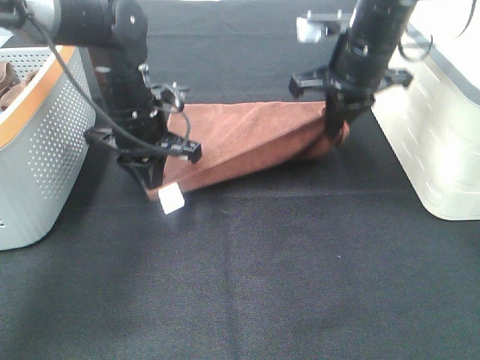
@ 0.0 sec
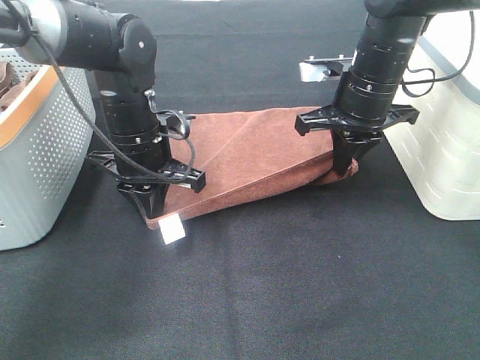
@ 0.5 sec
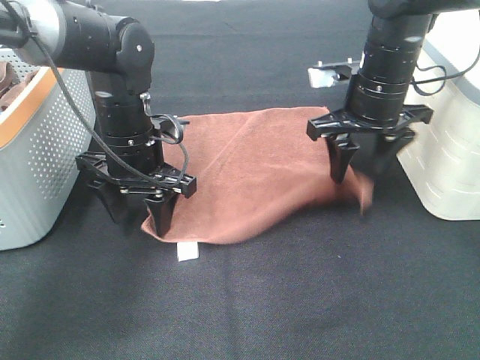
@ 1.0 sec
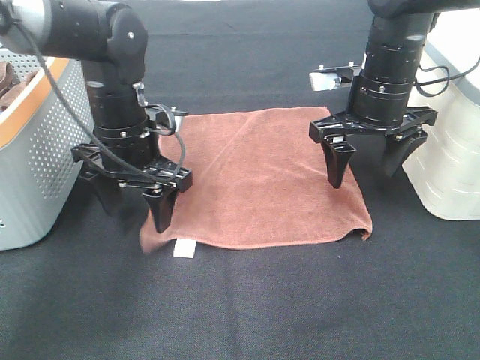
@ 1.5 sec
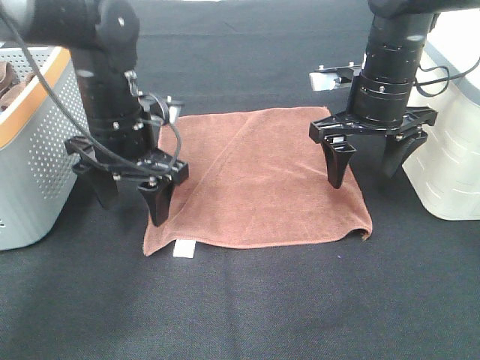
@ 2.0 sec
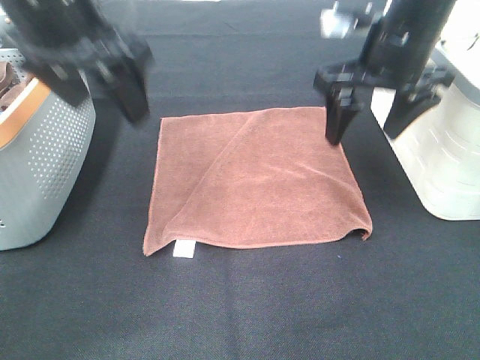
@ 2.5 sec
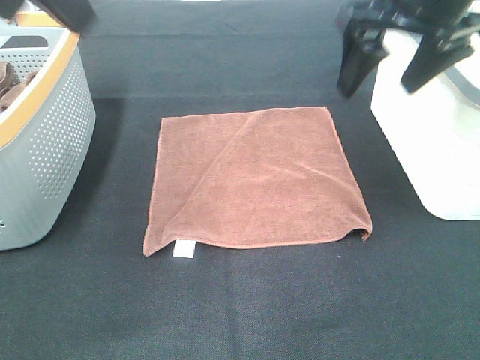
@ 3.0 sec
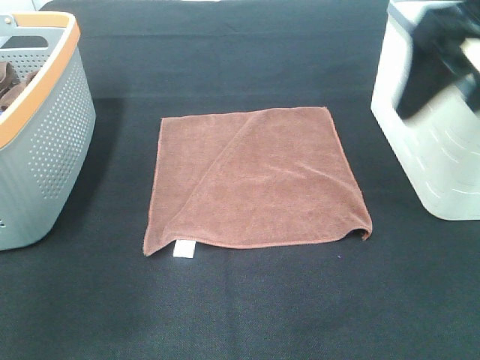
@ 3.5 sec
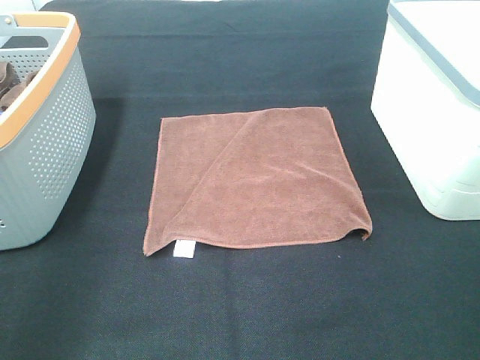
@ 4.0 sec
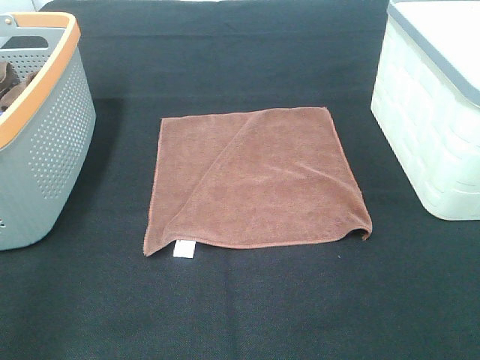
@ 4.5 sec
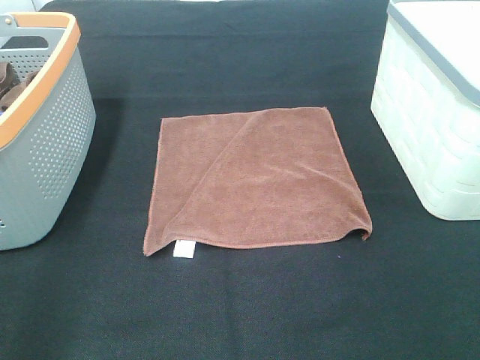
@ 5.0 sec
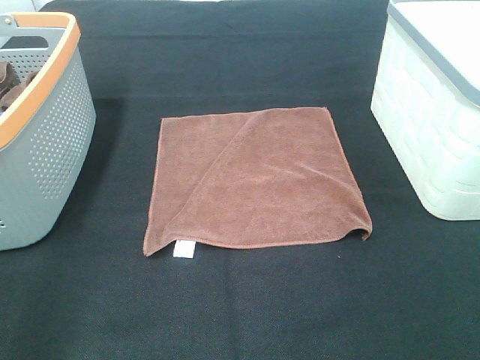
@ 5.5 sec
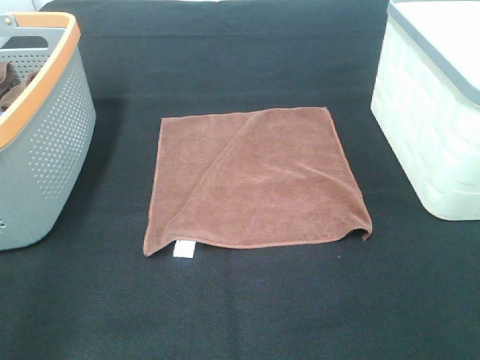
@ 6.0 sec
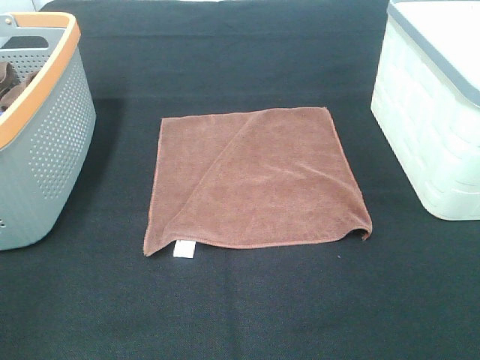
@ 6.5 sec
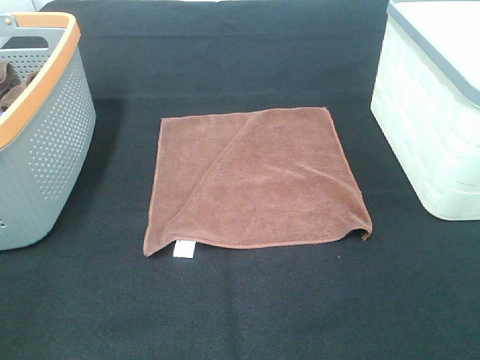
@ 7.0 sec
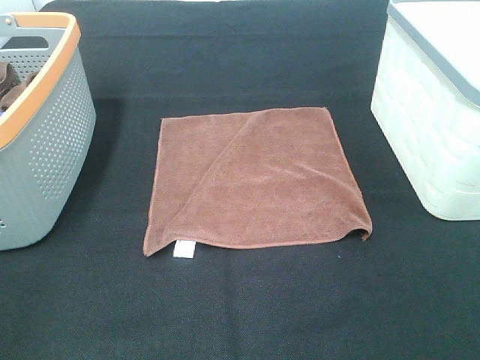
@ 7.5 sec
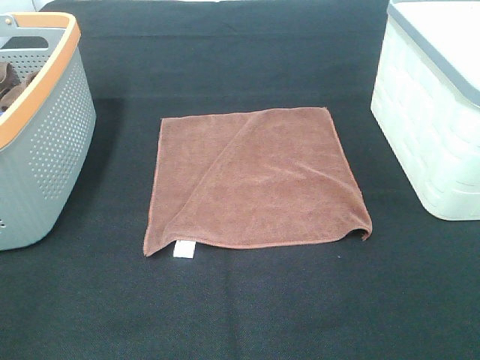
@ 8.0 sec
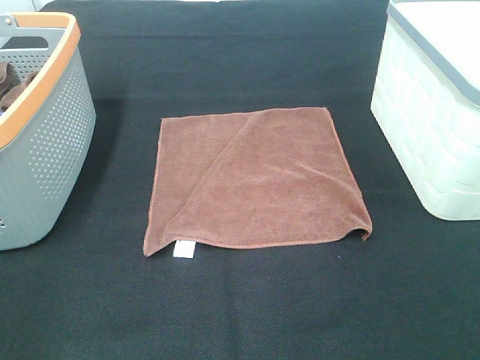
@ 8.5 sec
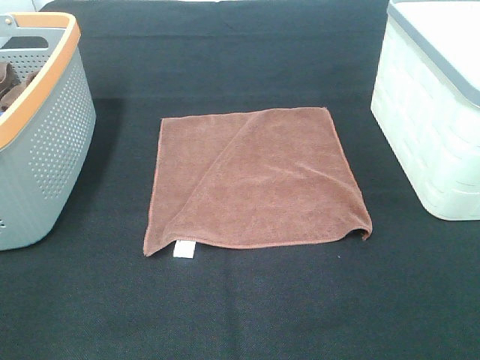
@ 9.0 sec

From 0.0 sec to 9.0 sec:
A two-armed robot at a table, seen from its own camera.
Task of the whole recording: Remove the towel and place it.
From 0.0 sec to 2.0 sec: The left gripper opens up. The right gripper opens.
From 2.0 sec to 4.5 sec: The left gripper is displaced backward and to the left by about 35 cm. The right gripper is displaced backward by approximately 30 cm.

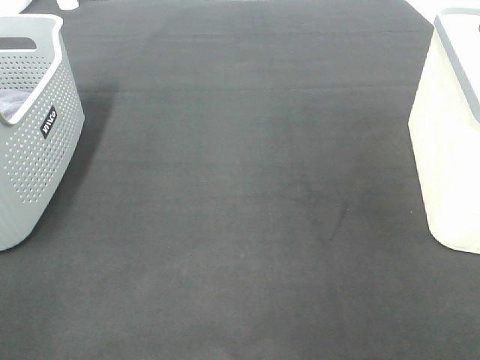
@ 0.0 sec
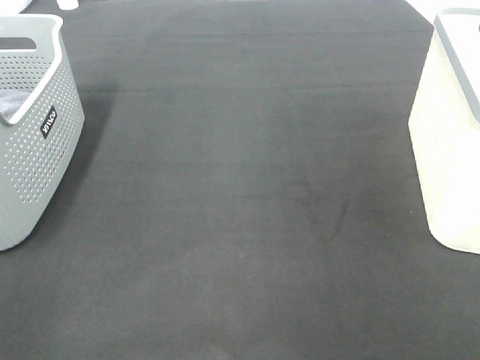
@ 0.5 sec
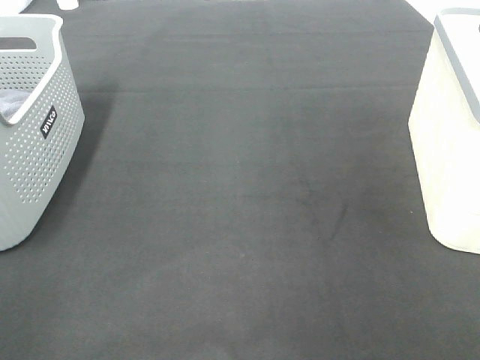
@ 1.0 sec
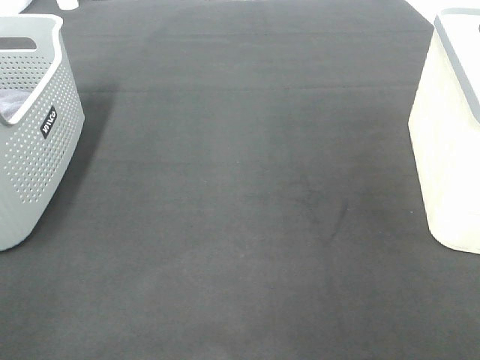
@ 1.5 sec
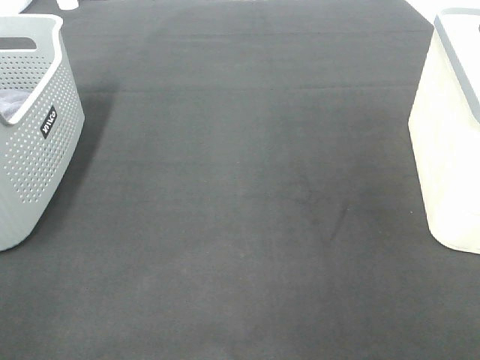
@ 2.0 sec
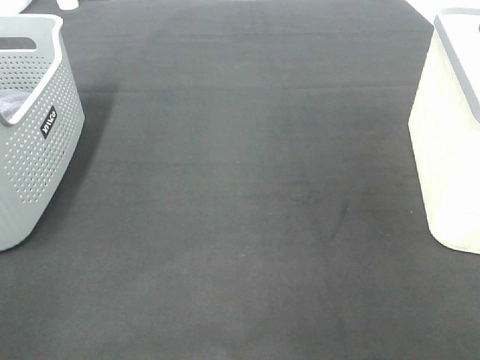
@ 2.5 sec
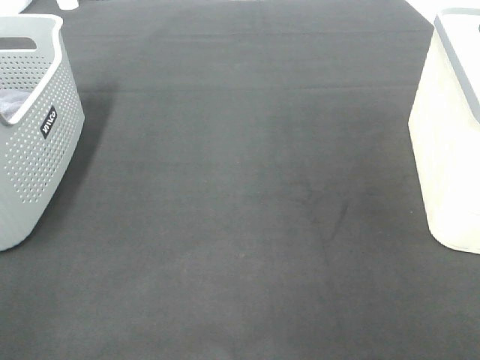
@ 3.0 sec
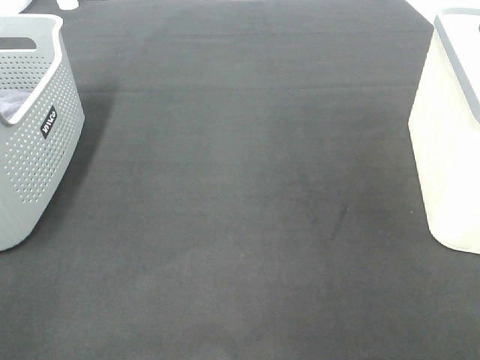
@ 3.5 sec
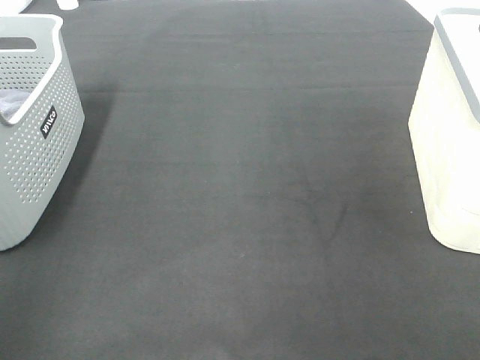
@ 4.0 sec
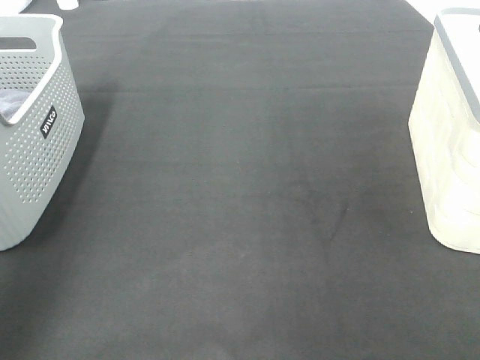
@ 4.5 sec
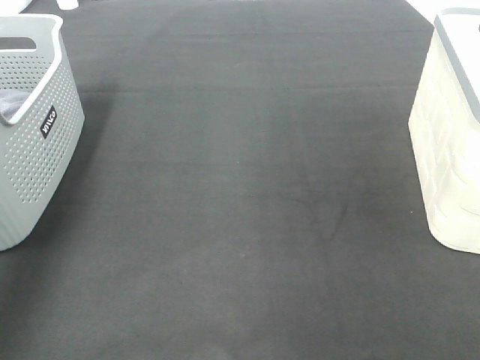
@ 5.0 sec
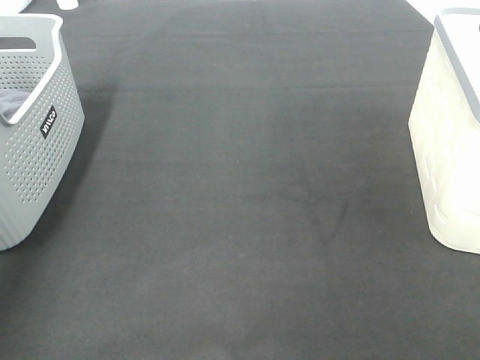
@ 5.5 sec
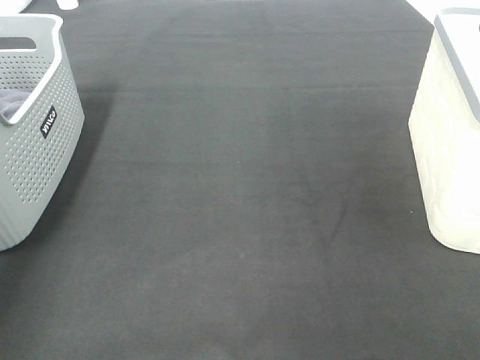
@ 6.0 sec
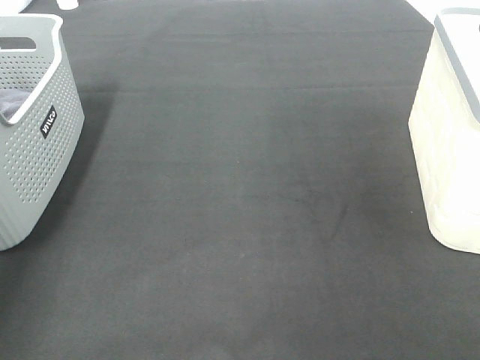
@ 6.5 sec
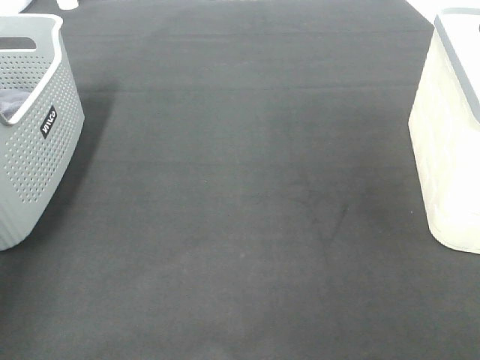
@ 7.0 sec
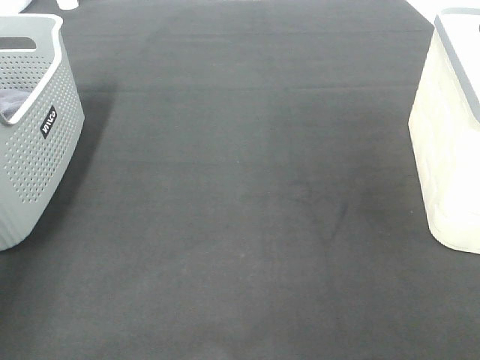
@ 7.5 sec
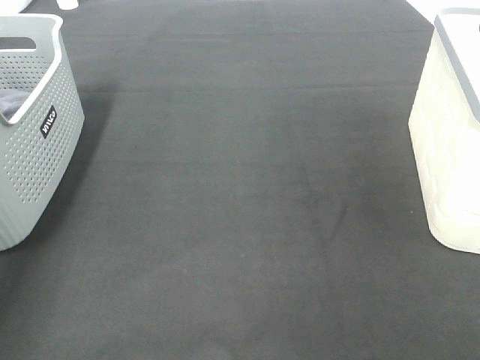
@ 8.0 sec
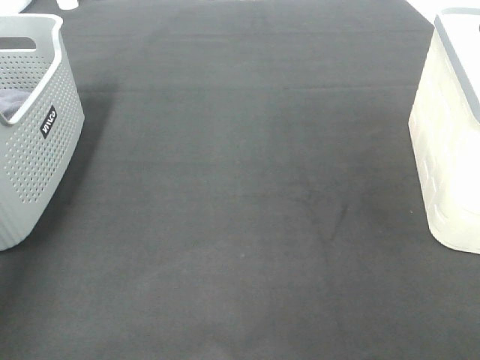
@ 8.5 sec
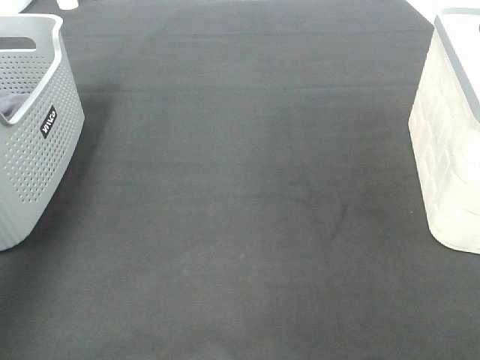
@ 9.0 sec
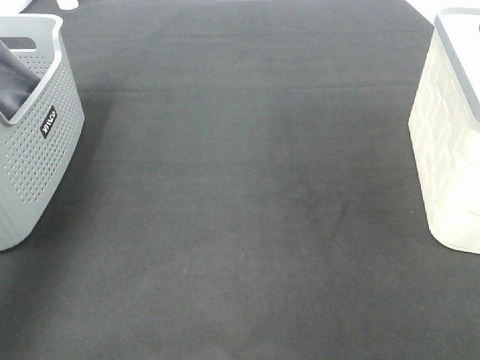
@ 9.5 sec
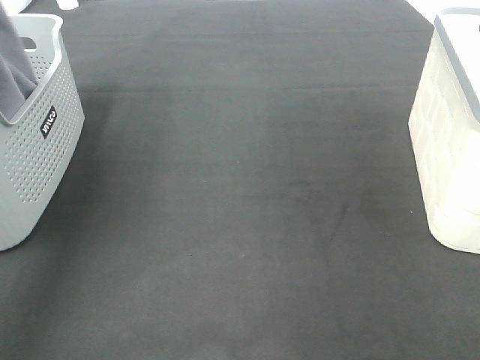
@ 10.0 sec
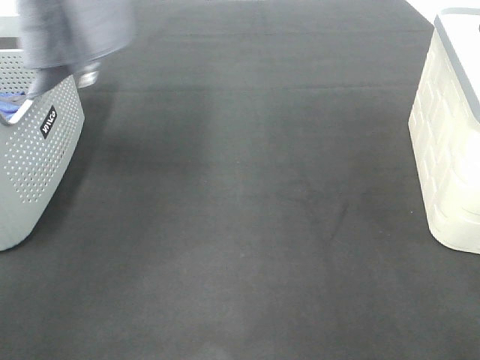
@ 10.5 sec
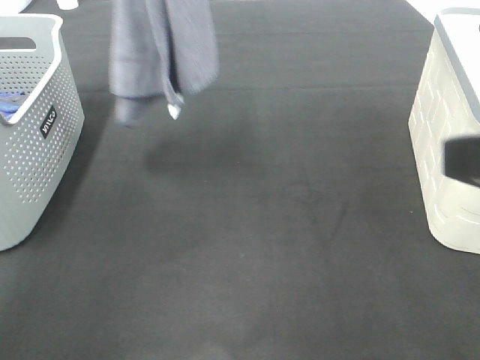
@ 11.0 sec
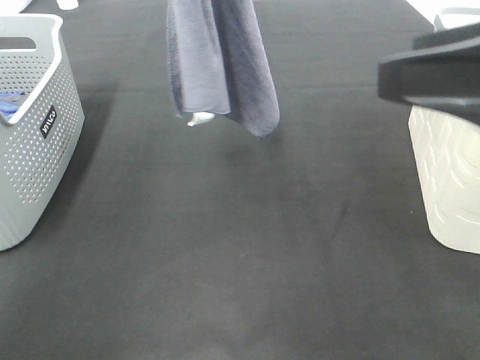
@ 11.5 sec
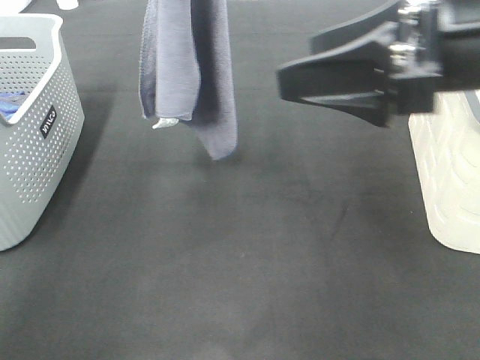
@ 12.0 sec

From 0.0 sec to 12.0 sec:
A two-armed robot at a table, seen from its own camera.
Task of the whole recording: Remove the towel and place it.
From 0.0 sec to 2.0 sec: The two grippers keep their place.
From 4.0 sec to 6.0 sec: The left gripper moves forward and downward, some 40 cm.
From 8.0 sec to 10.0 sec: The left gripper shifts approximately 30 cm upward and backward.
From 10.0 sec to 12.0 sec: The right gripper is displaced forward and to the left by approximately 25 cm, while the left gripper heads to the right, covering roughly 15 cm.

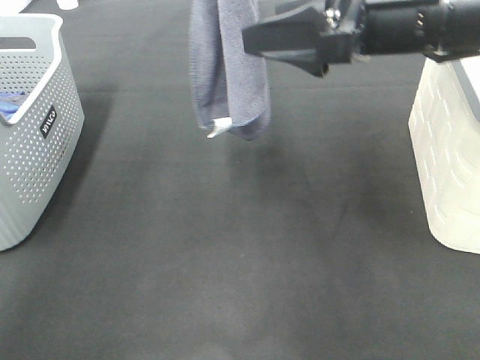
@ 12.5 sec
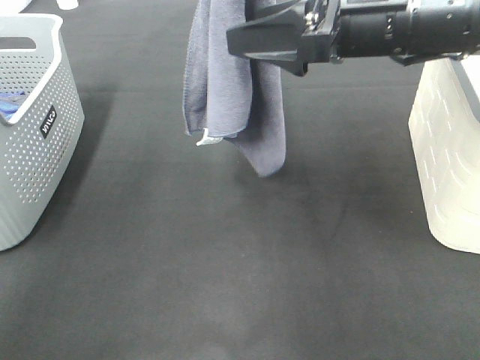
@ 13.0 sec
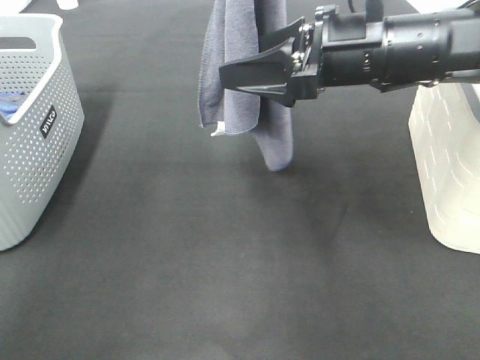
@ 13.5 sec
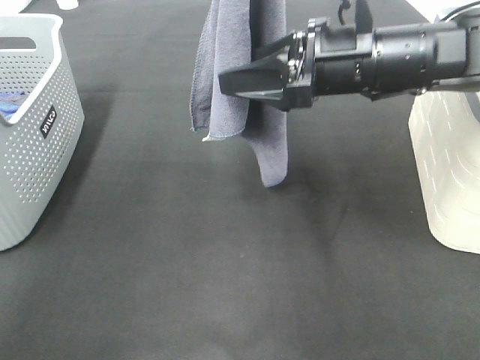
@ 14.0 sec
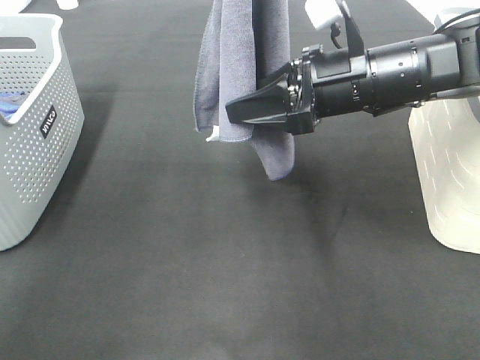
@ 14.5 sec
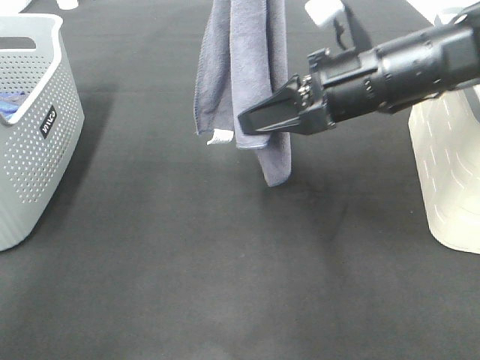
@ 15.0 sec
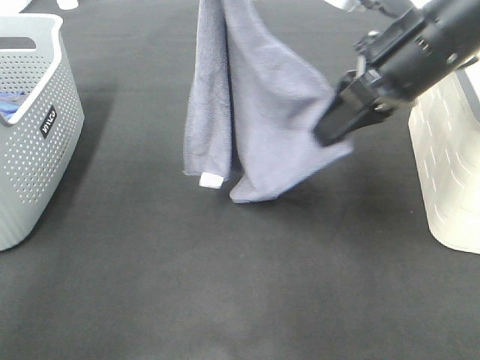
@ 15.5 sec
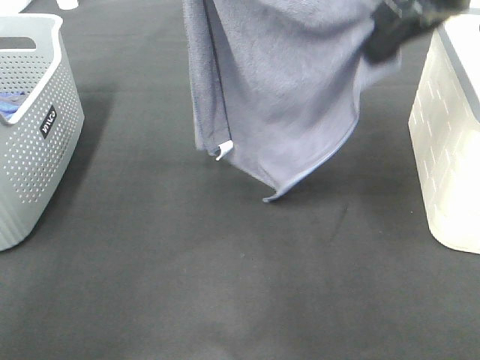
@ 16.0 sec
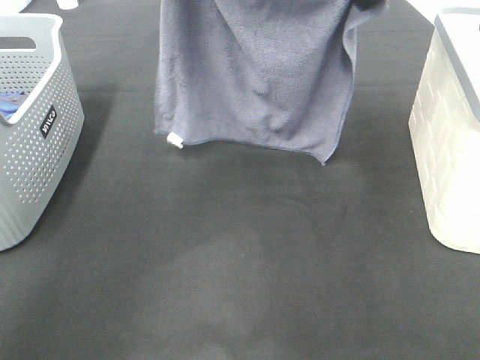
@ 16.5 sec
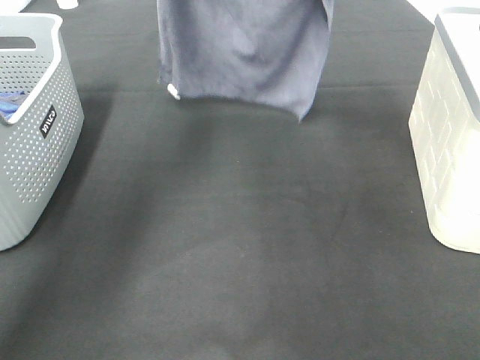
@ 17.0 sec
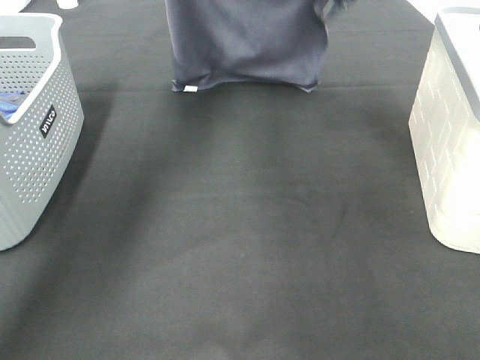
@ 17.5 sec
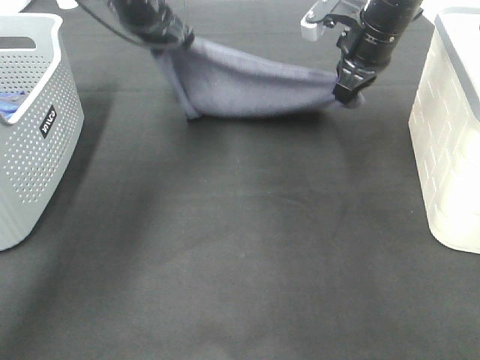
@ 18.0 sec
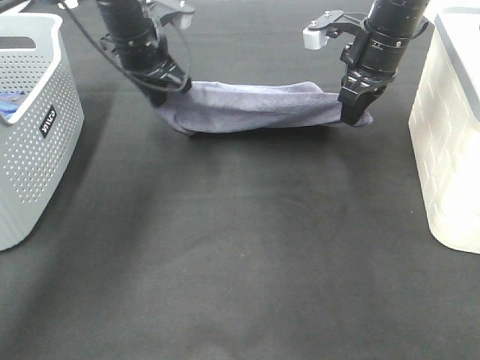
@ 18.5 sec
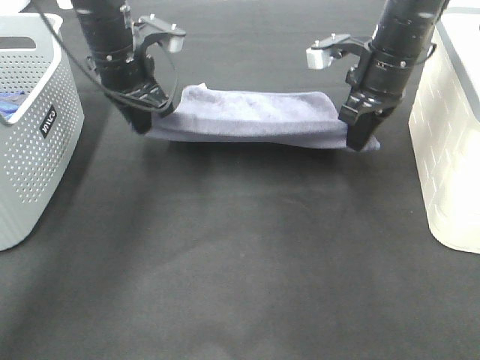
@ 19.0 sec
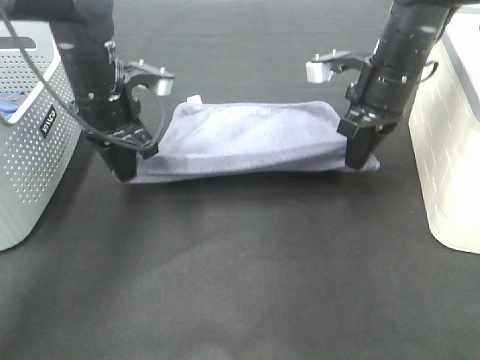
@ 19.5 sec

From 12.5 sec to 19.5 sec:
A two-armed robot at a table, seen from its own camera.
Task of the whole recording: Remove the towel and place it.
Step, from 13.5 sec to 17.0 sec: Right hand: spread the grey towel flat on the table.
Step, from 13.5 sec to 17.5 sec: Left hand: spread the grey towel flat on the table.
From 12.5 sec to 14.5 sec: The right gripper travels downward by roughly 10 cm, and closes up.
From 14.5 sec to 16.0 sec: The right gripper heads upward, covering some 15 cm, and closes up. The left gripper shifts by some 5 cm.
From 16.0 sec to 17.5 sec: The two grippers go about 20 cm forward and downward.
From 17.5 sec to 19.5 sec: Both grippers move backward and downward, approximately 15 cm.
